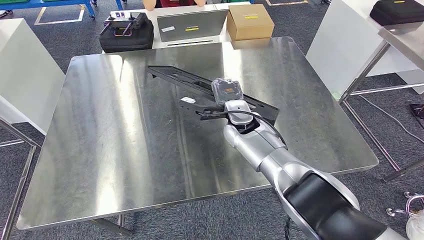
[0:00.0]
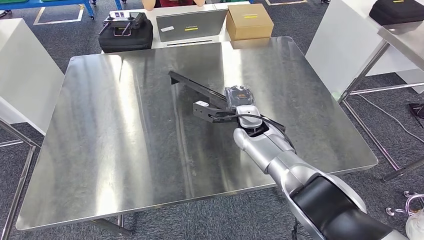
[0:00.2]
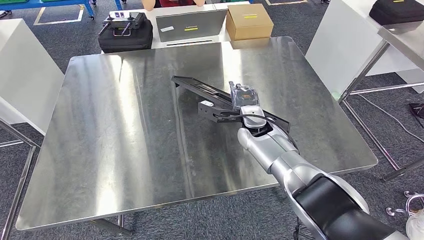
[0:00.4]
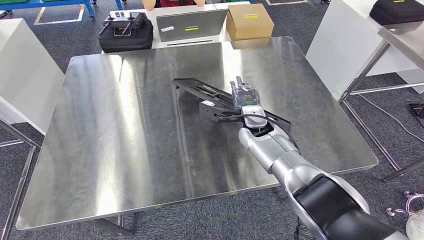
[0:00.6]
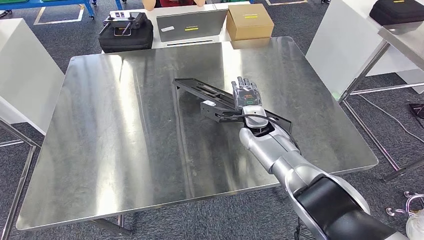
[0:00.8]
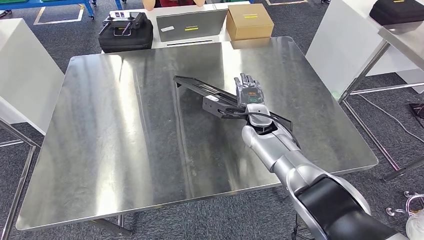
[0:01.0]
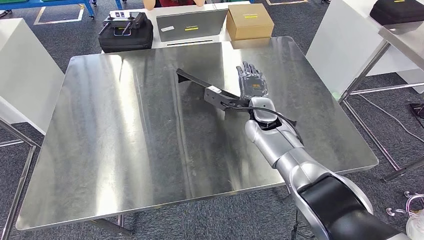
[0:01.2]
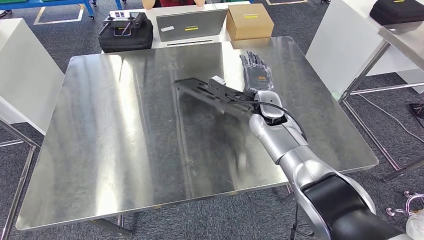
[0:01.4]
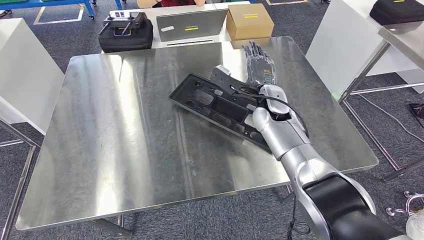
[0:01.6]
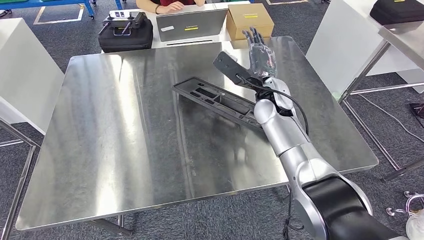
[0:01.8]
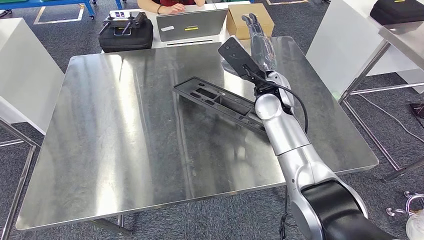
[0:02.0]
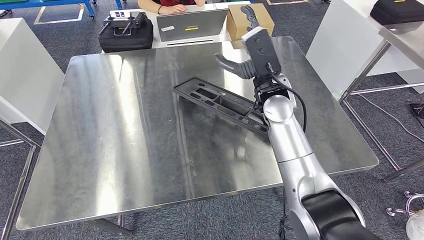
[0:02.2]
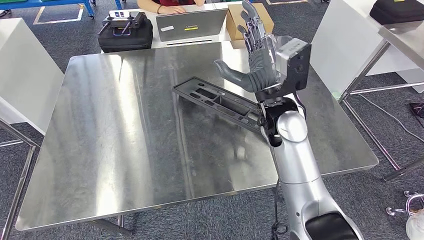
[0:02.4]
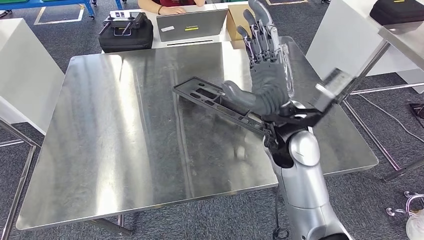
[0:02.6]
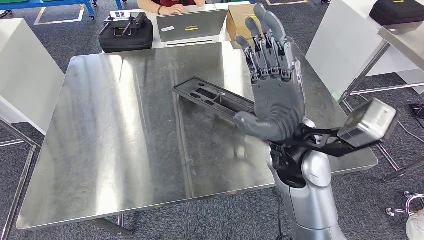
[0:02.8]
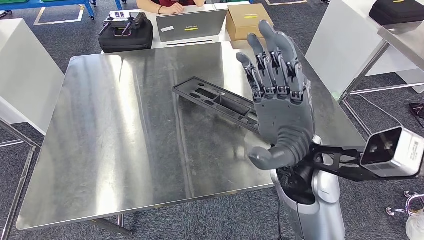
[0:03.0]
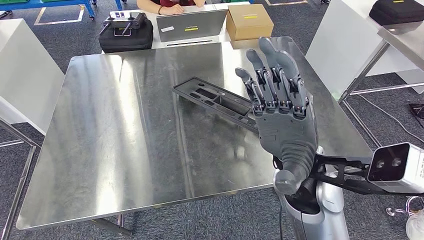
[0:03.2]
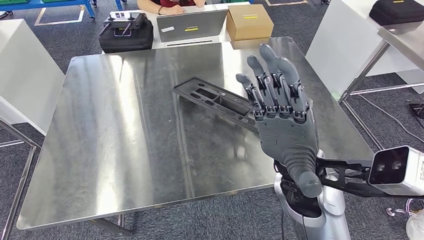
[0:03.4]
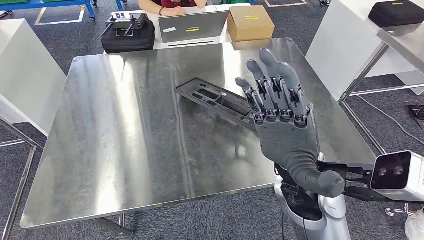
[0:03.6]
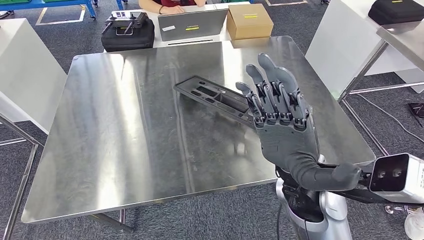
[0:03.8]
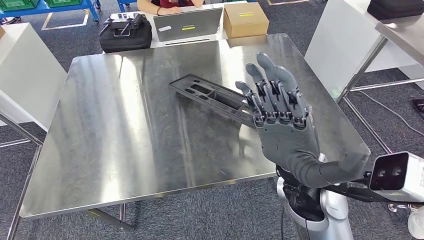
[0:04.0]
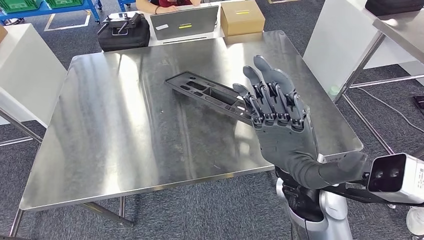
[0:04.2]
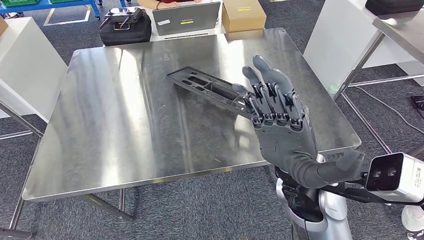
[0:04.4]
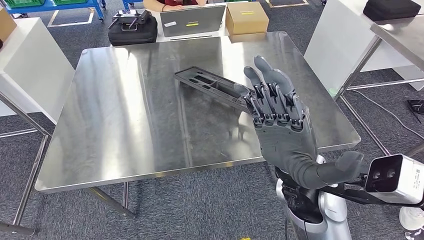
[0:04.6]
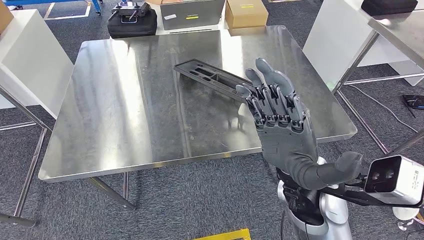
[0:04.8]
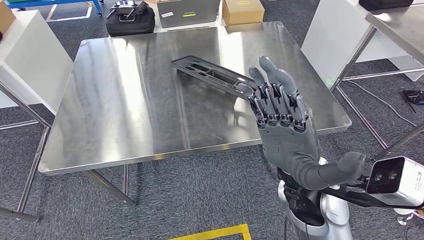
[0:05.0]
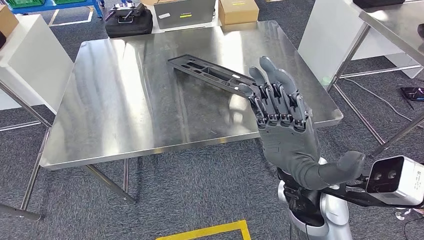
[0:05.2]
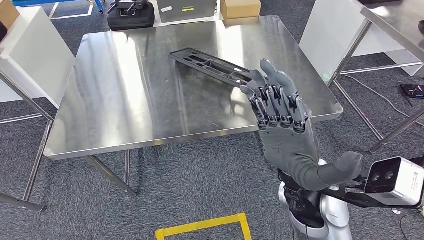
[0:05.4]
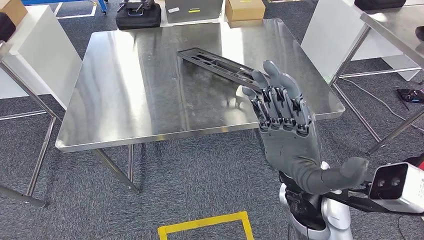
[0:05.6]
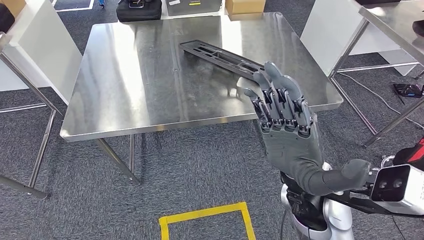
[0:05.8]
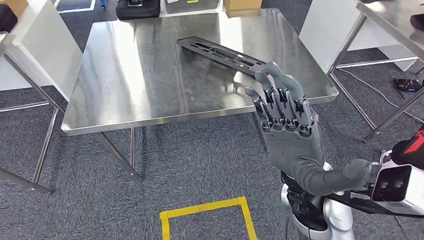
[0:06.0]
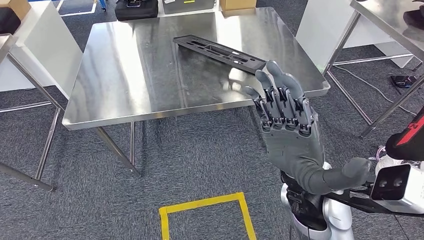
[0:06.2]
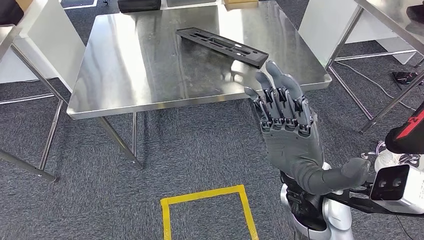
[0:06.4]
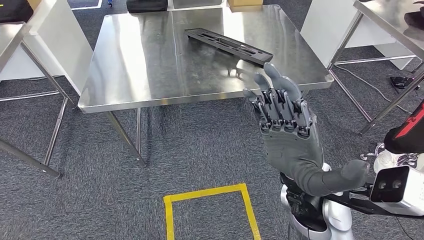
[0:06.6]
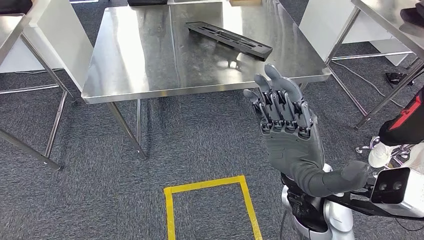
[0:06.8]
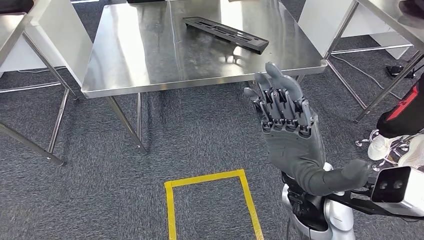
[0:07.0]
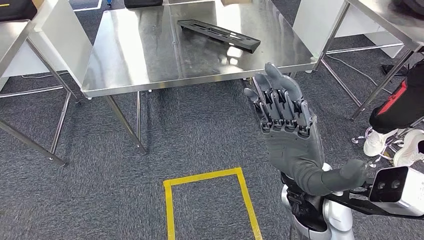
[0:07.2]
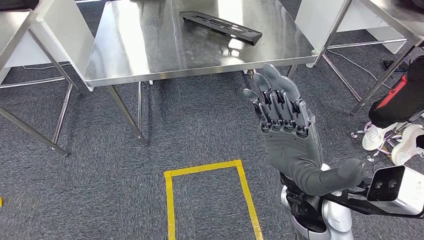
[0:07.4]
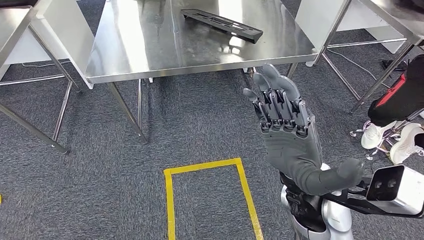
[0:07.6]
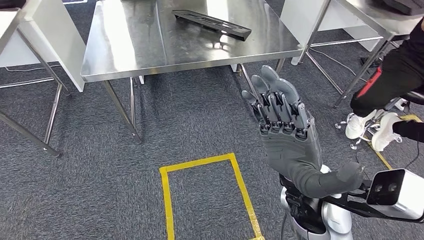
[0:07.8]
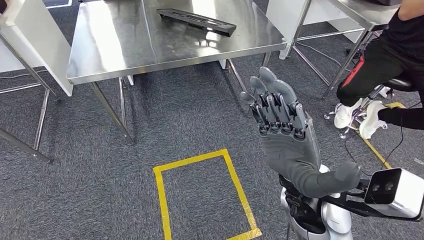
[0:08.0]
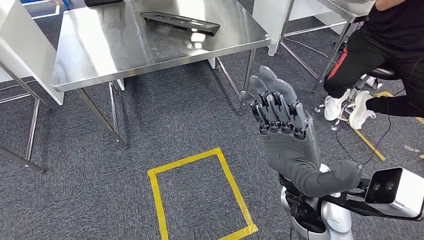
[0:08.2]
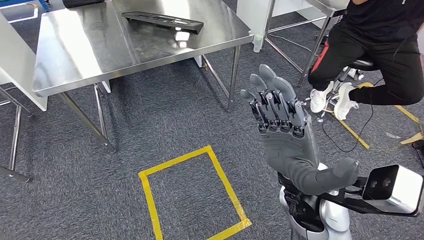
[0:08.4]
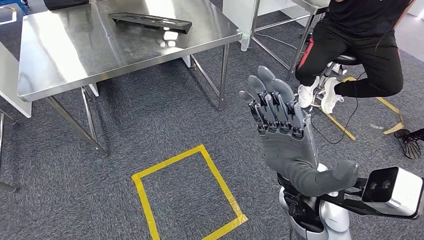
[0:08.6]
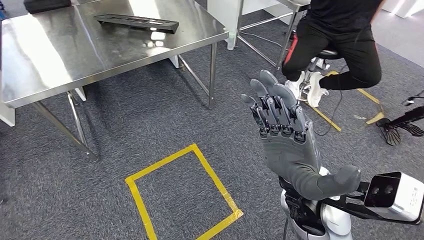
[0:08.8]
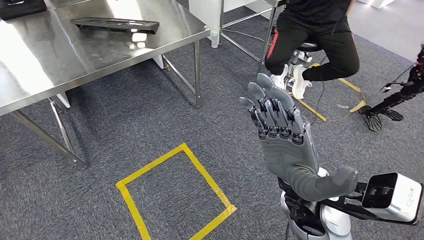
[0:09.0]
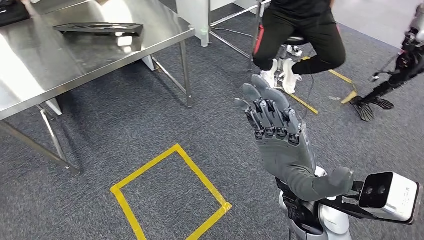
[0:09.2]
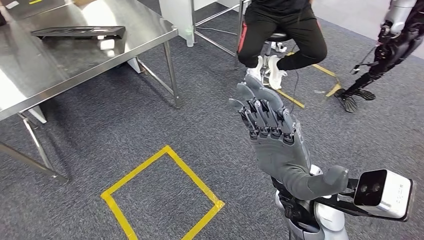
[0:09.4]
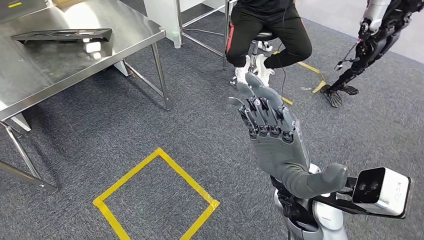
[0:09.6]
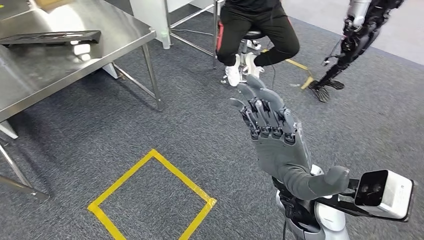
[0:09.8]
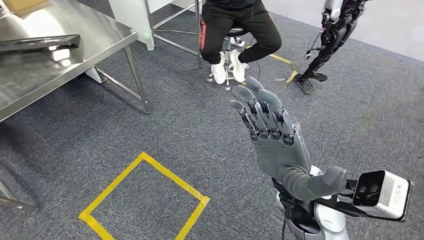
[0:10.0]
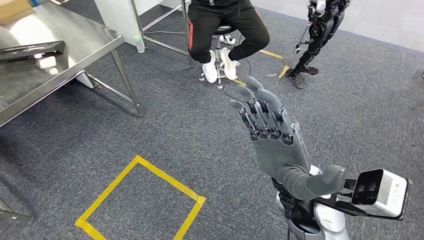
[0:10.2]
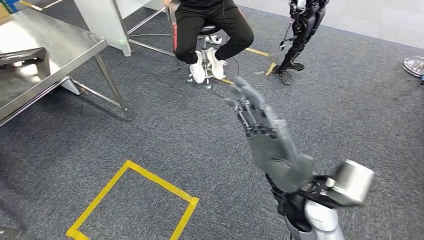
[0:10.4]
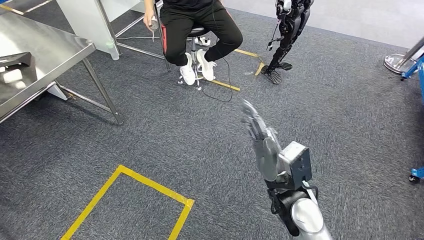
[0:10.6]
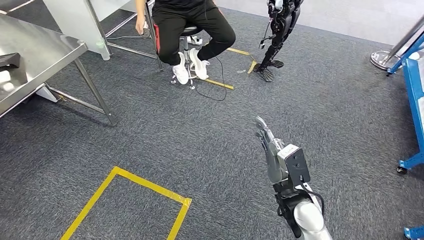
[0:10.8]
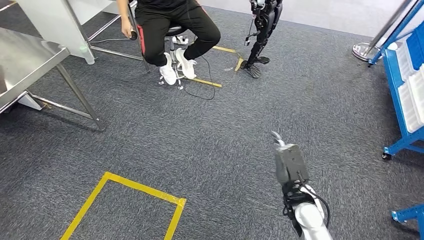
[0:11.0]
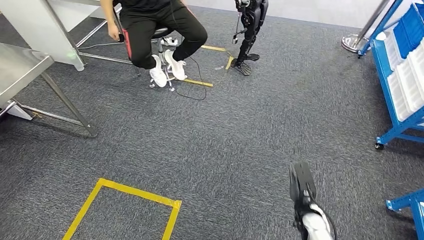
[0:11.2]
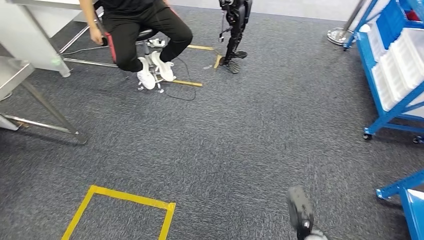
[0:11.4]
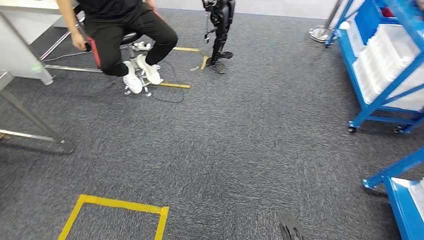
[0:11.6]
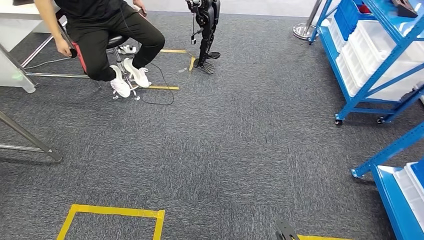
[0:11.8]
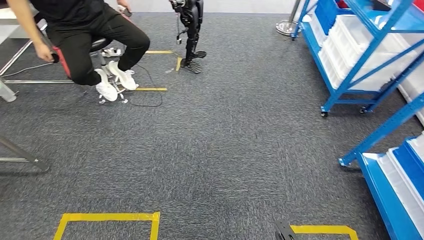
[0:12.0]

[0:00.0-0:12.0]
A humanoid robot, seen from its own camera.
Step, 0:00.0 to 0:09.4: Insert the large material into the corresponding slot on the workbench.
0:00.0 to 0:01.6: The right hand travels to the right by some 5 cm.
0:01.6 to 0:03.0: The right hand heads backward, upward and to the left, covering roughly 20 cm.

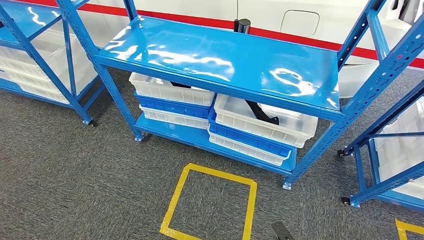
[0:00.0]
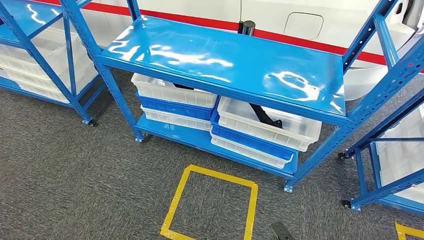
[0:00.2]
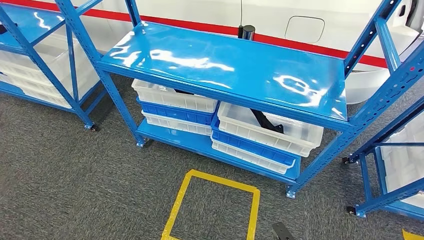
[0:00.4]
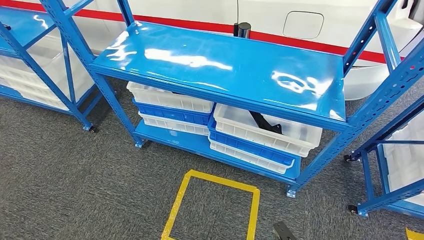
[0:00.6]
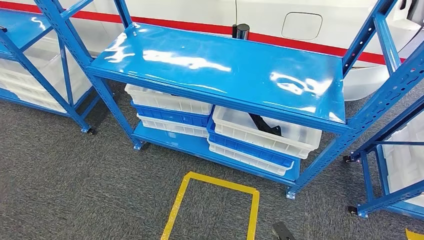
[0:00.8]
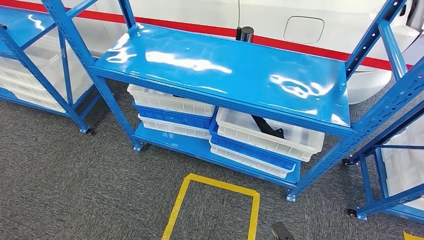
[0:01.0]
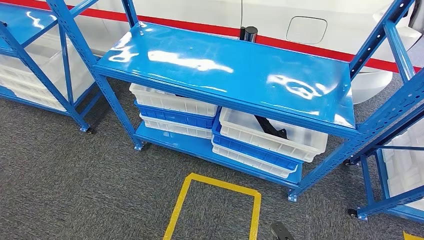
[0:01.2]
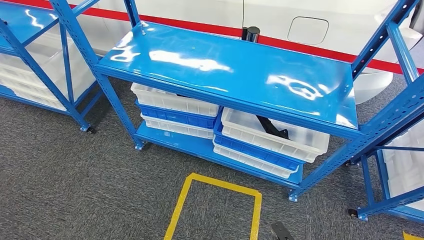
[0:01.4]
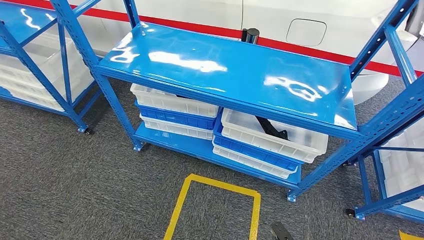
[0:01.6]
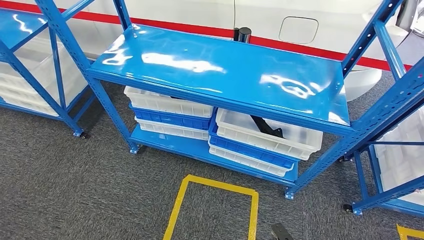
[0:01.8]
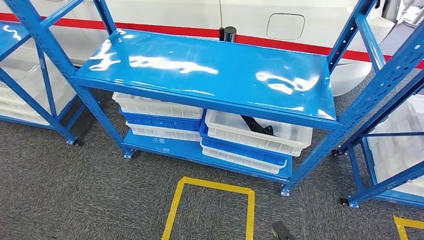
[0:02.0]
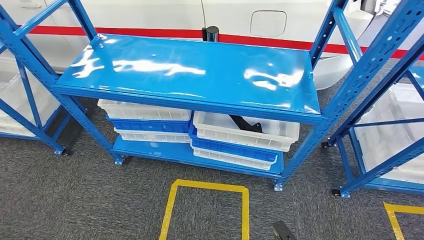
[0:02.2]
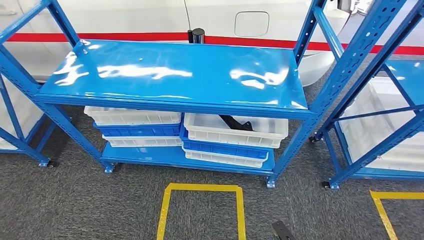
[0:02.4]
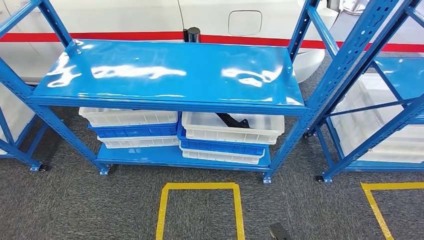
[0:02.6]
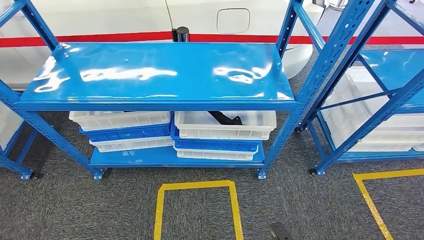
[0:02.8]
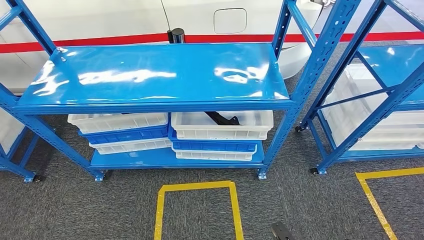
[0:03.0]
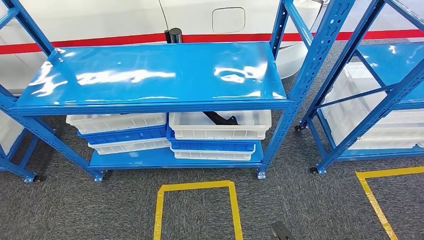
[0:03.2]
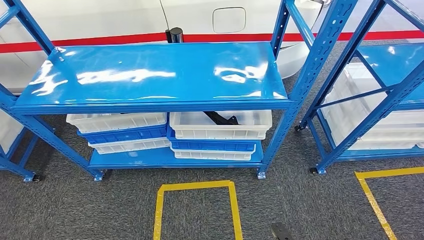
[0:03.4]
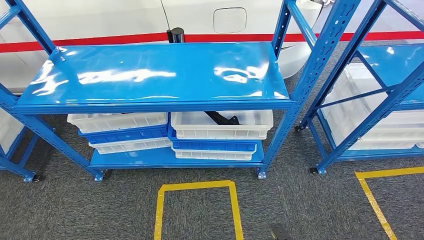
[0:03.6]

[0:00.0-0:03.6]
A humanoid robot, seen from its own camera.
Step, 0:00.0 to 0:03.6: Move to the initial position of the shelf.
